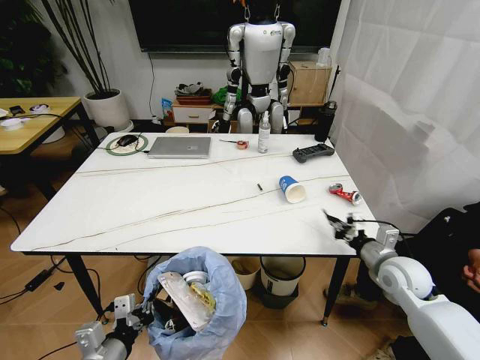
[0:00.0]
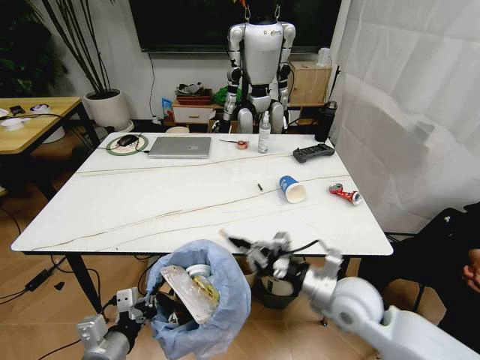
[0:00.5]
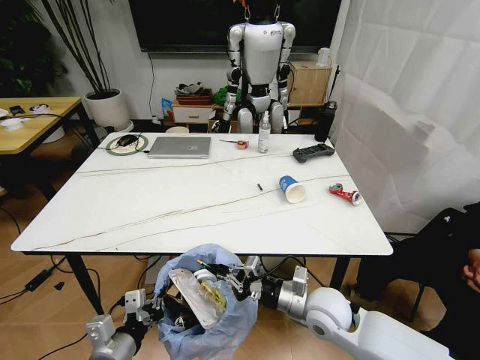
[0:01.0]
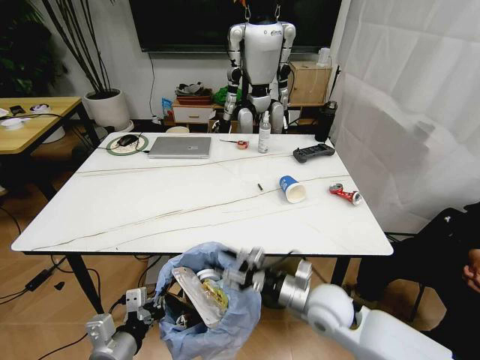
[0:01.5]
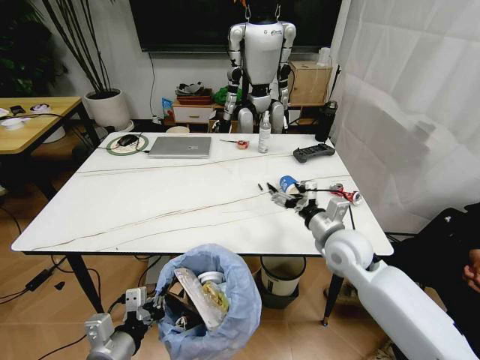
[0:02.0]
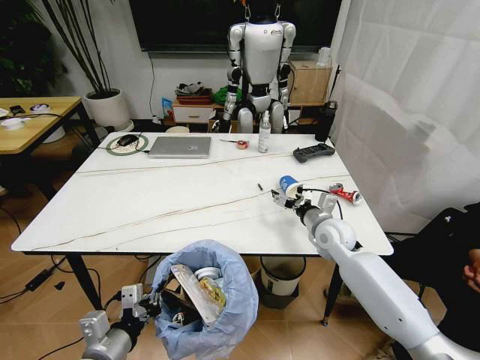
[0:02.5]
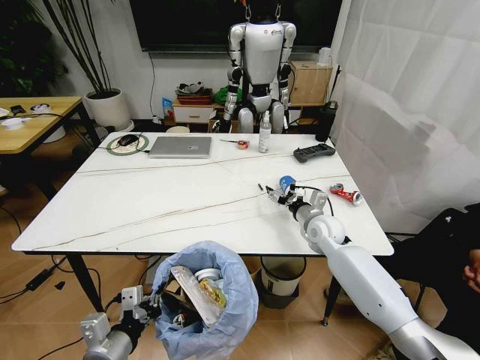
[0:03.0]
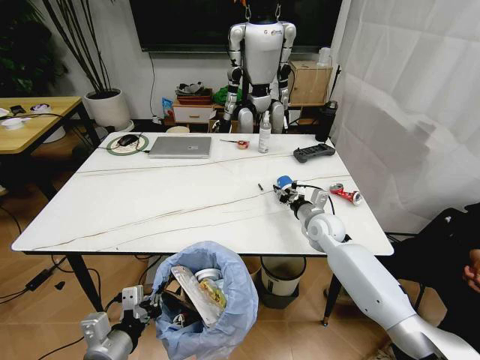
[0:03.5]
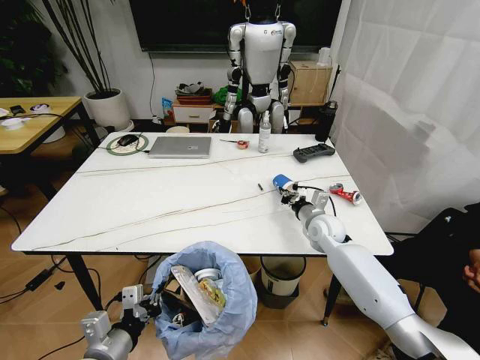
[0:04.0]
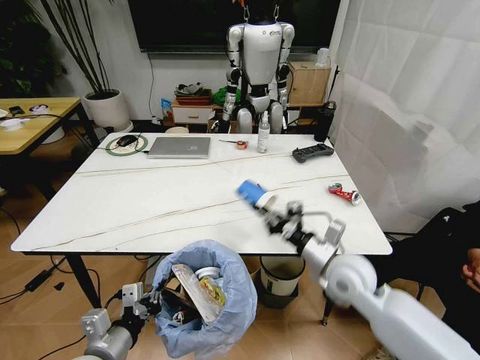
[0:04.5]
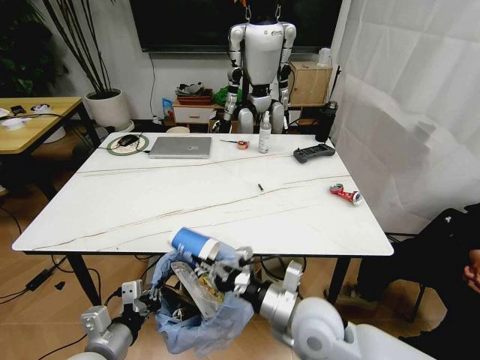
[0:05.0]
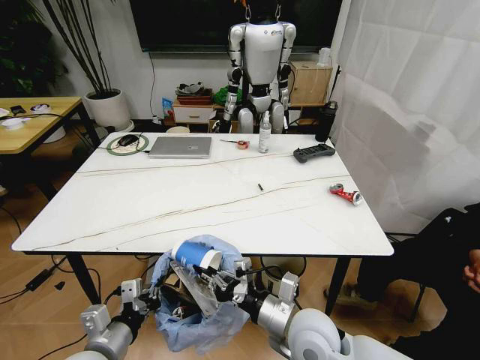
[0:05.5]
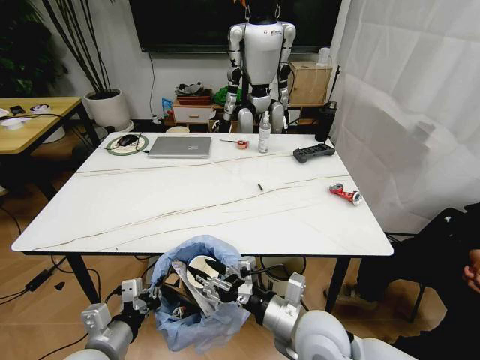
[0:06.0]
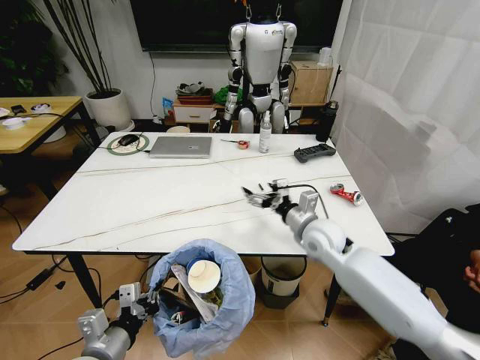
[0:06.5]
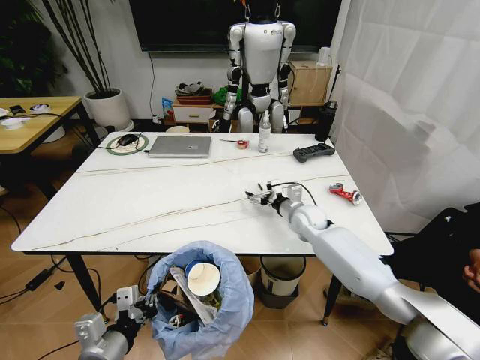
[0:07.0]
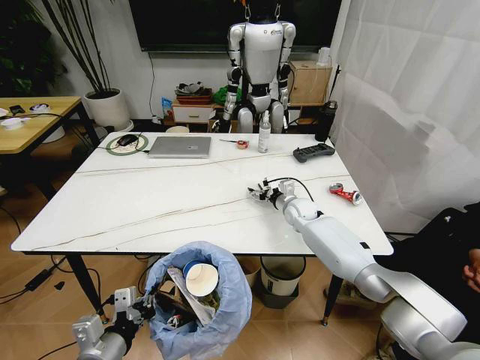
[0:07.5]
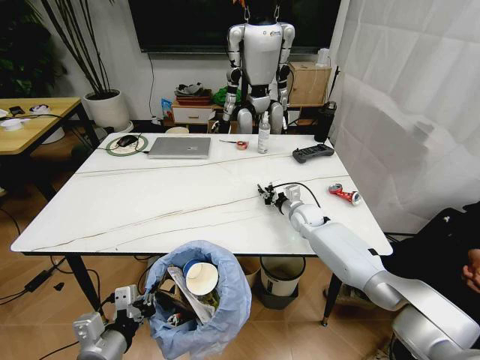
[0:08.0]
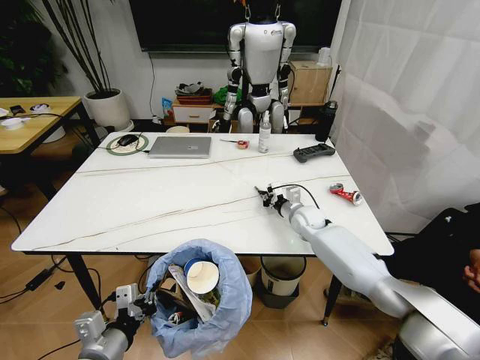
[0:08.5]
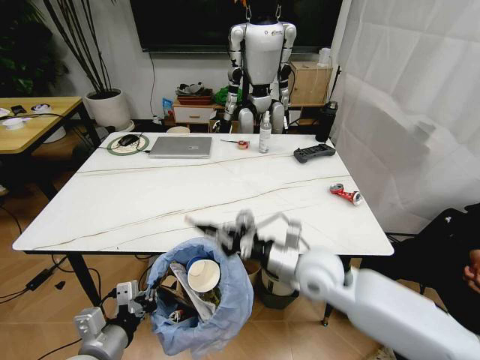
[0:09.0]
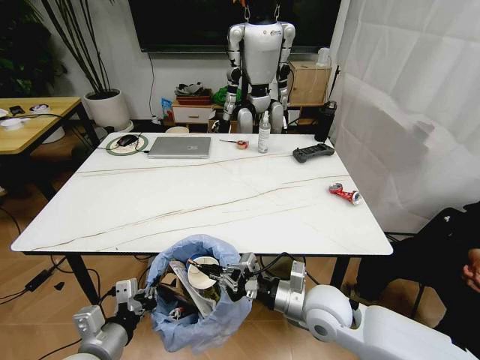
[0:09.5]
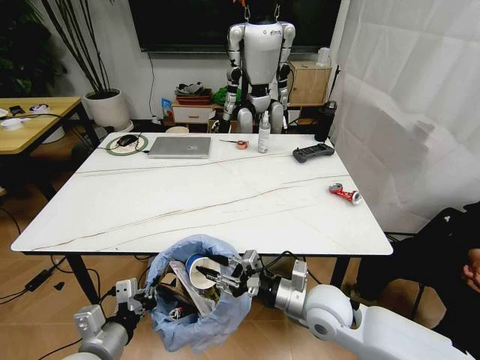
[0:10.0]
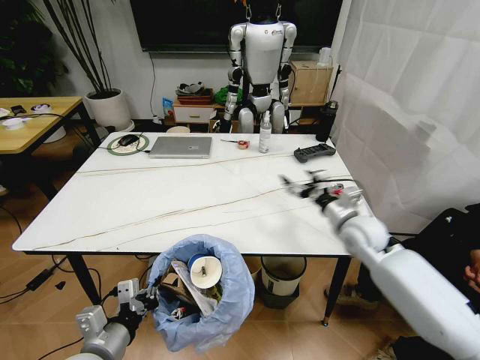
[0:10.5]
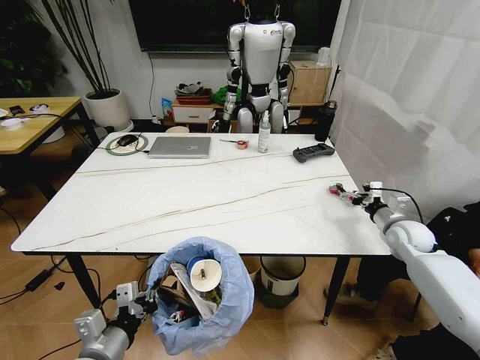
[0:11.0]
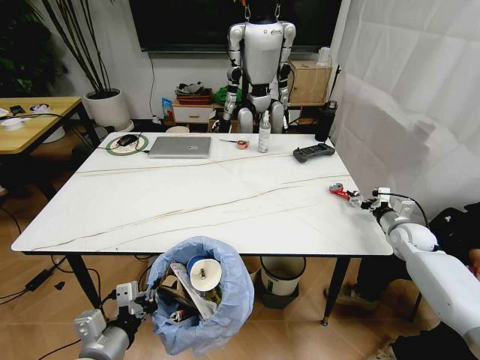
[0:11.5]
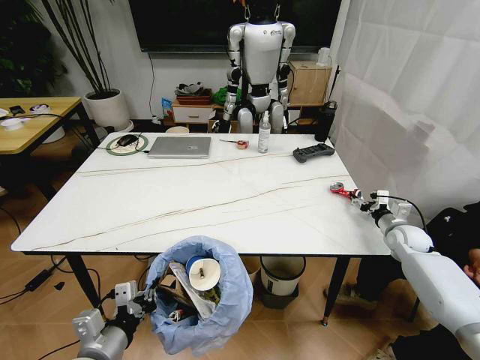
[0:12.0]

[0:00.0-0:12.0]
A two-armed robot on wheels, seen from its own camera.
Task of the whole recording: Pick up the trash bin and place the trash from the table into it.
0:00.0 to 0:02.0: The right gripper is displaced to the left and upward by about 15 cm, and opens up.
0:02.0 to 0:04.0: The right gripper travels forward and downward by about 15 cm, and closes.
0:04.0 to 0:06.0: The right gripper heads backward, covering approximately 25 cm, and opens its fingers.
0:06.0 to 0:08.0: The right gripper travels forward by approximately 35 cm, and opens, then closes once more.
0:08.0 to 0:10.0: The right gripper travels backward by some 30 cm.
0:10.0 to 0:12.0: The right gripper travels to the right and forward by approximately 35 cm.

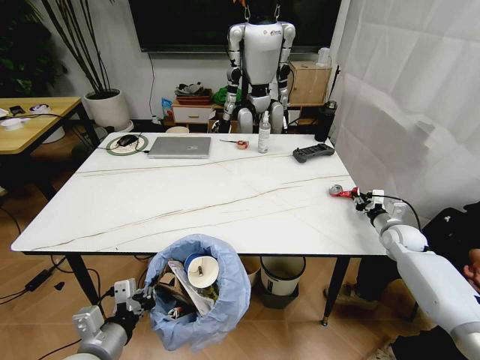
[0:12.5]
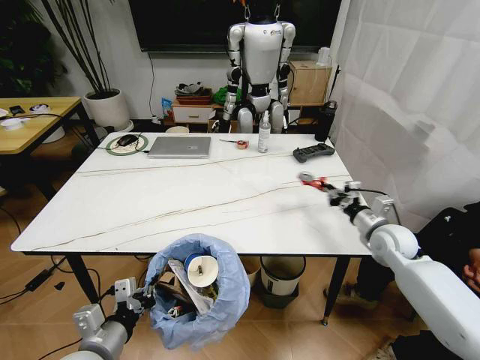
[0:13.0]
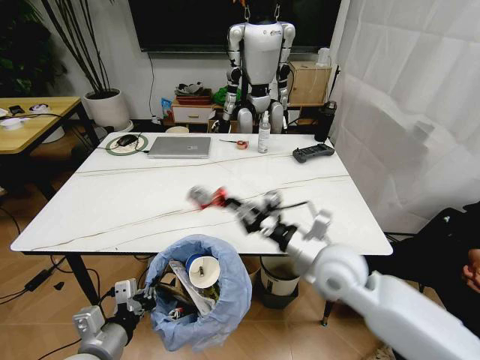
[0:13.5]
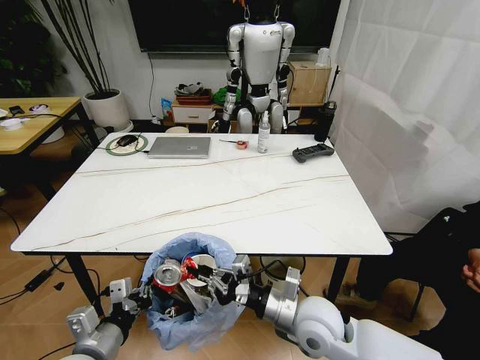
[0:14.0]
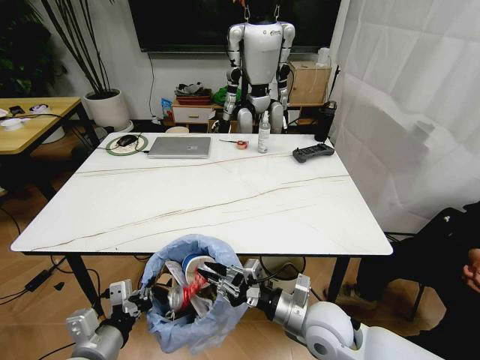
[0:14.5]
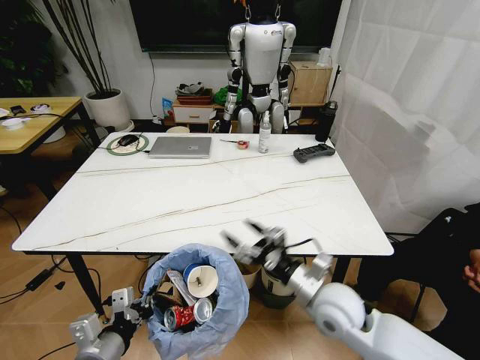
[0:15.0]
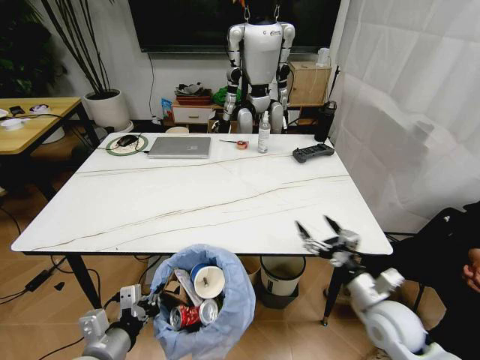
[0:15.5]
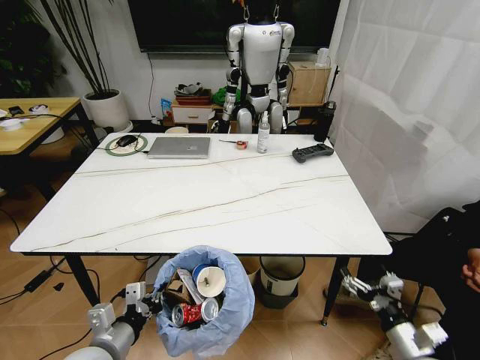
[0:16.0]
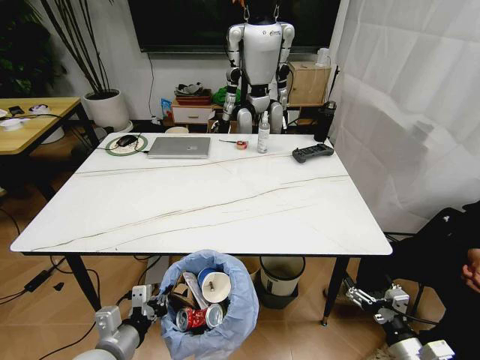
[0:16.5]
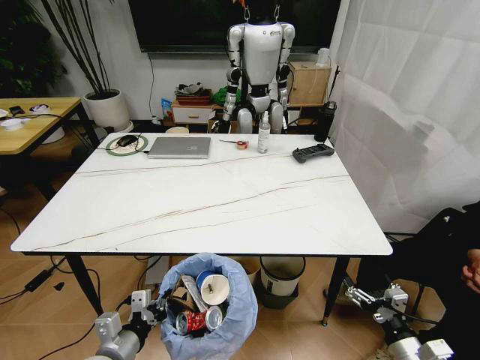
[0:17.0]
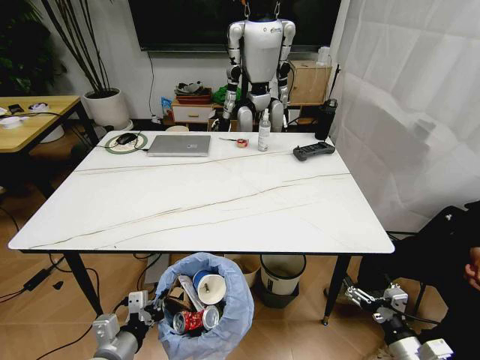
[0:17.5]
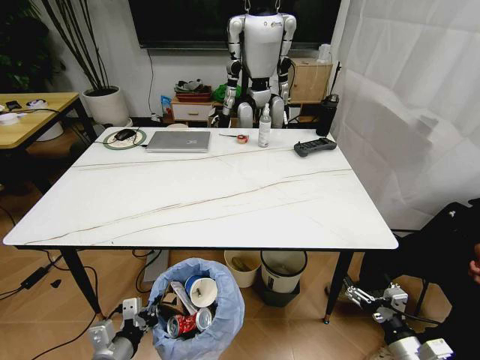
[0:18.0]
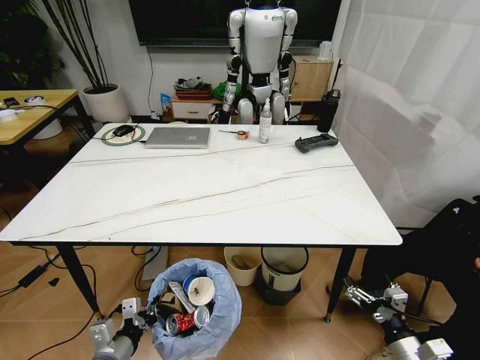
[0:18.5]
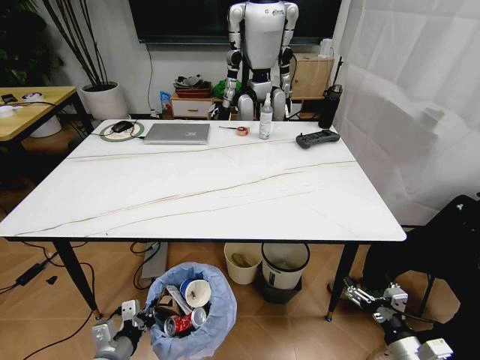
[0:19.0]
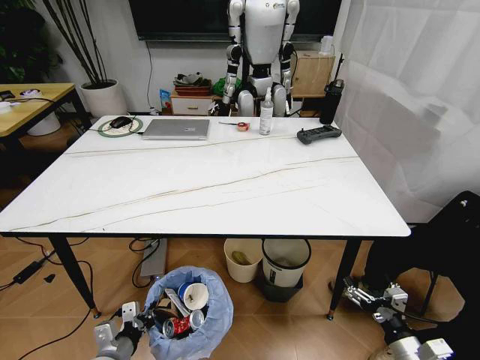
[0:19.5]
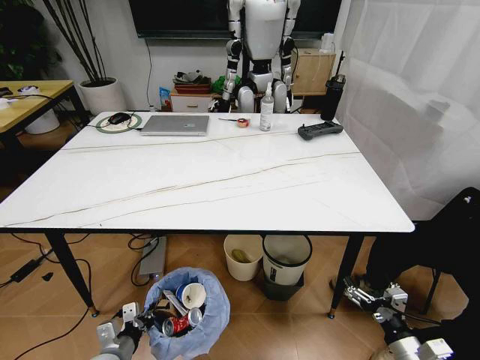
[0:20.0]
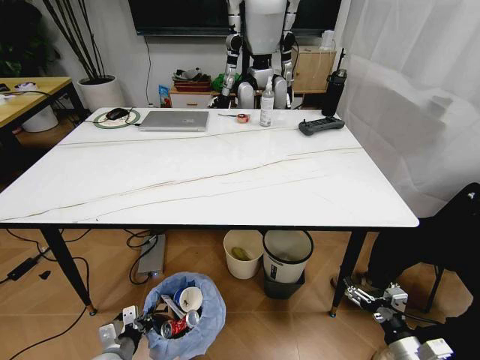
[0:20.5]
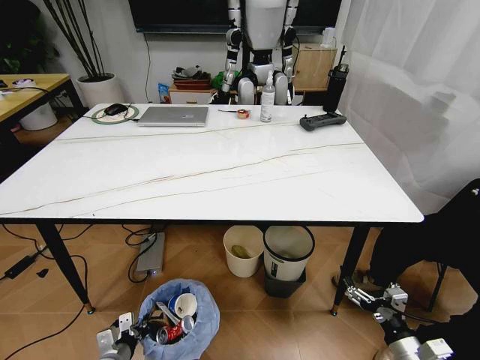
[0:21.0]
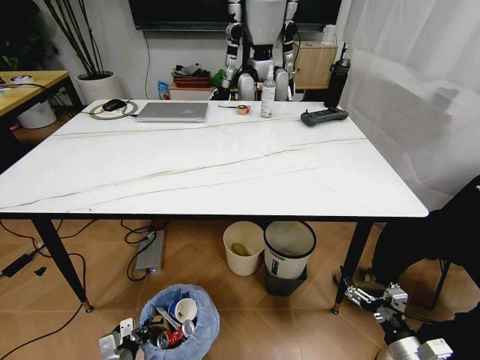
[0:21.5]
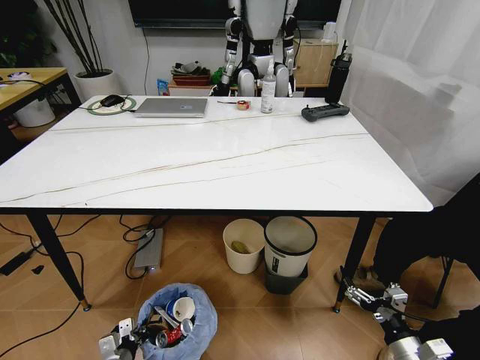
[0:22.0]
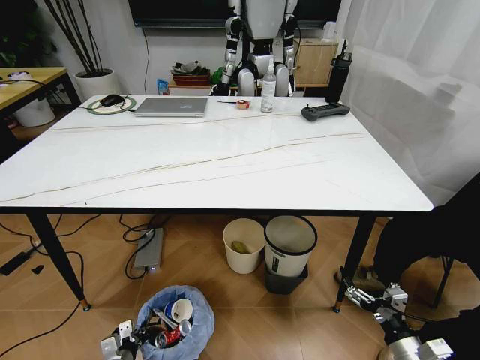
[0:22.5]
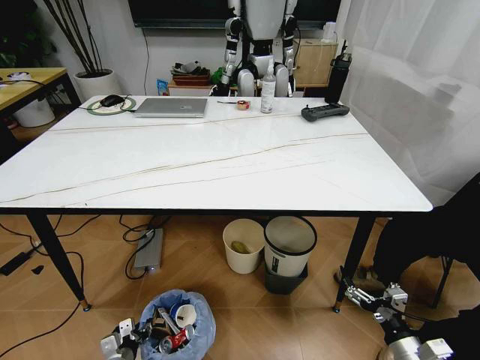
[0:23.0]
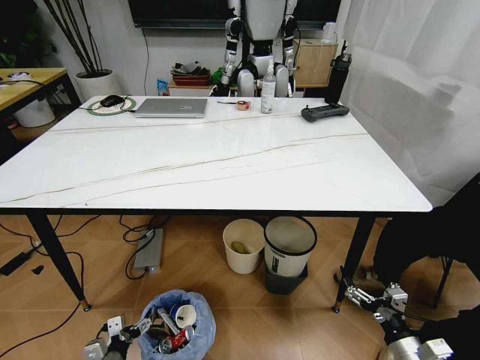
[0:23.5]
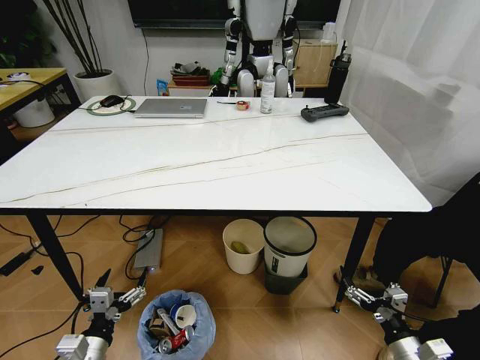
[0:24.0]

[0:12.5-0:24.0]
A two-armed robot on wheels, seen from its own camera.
Task of the whole recording: Pick up the trash bin and place the trash from the table into it.
0:12.5 to 0:14.5: The right gripper shifts roughly 40 cm to the left and backward.
0:14.5 to 0:16.5: The left gripper shifts by approximately 5 cm; the right gripper is displaced to the right and backward by about 25 cm, and opens up.
0:16.5 to 0:18.5: The left gripper is displaced downward by approximately 5 cm.
0:18.5 to 0:20.0: The left gripper travels downward by some 5 cm.
0:20.0 to 0:22.0: The left gripper is displaced downward by some 10 cm.
0:22.0 to 0:24.0: The left gripper is displaced upward by roughly 20 cm, and opens.

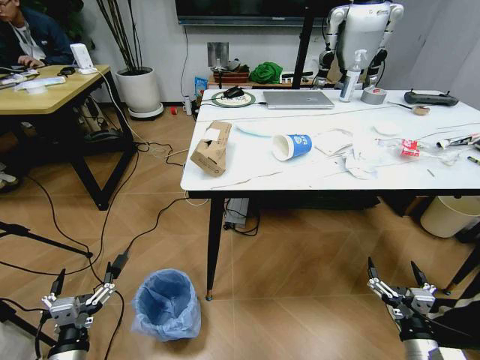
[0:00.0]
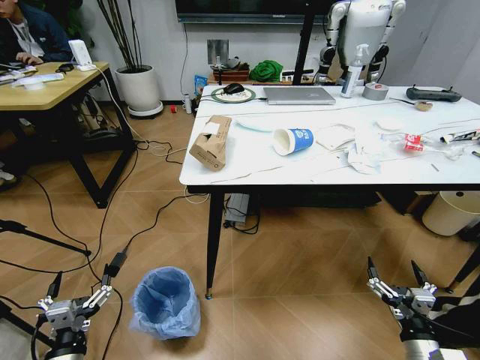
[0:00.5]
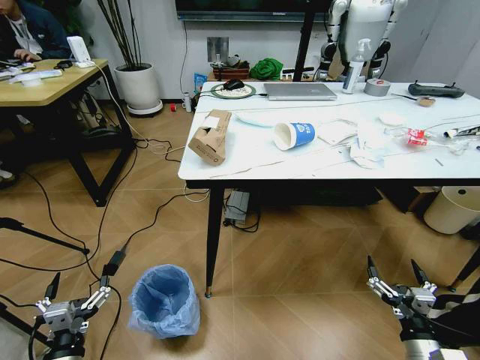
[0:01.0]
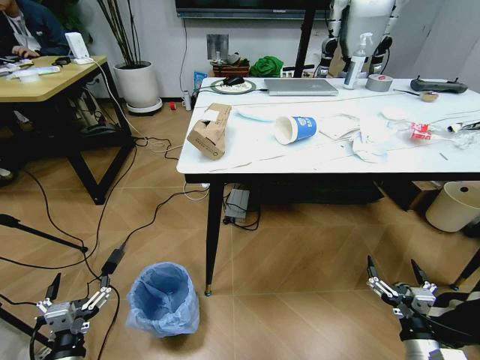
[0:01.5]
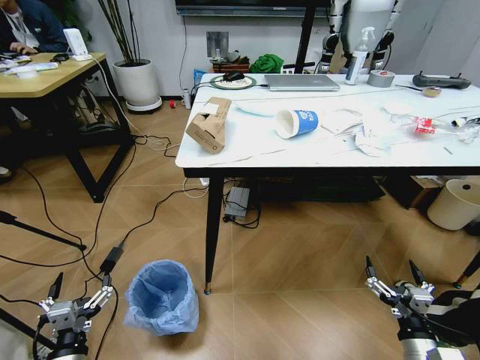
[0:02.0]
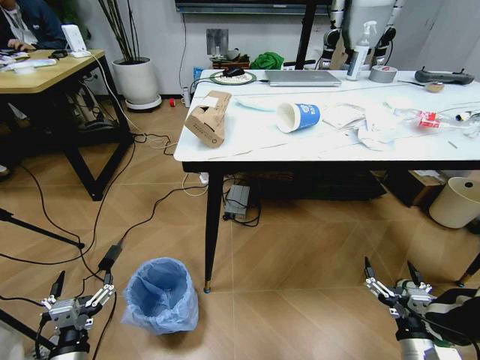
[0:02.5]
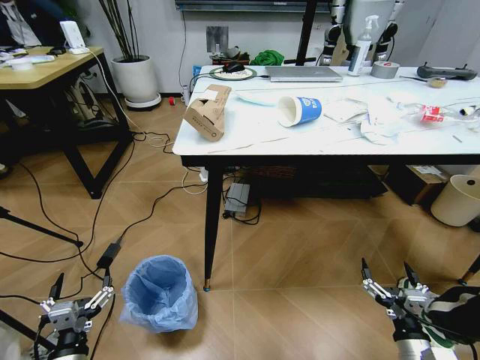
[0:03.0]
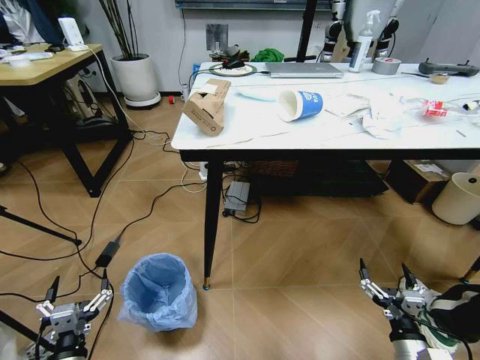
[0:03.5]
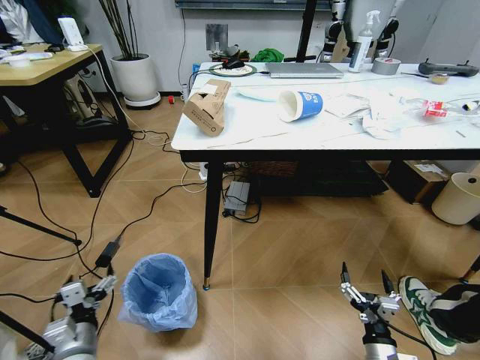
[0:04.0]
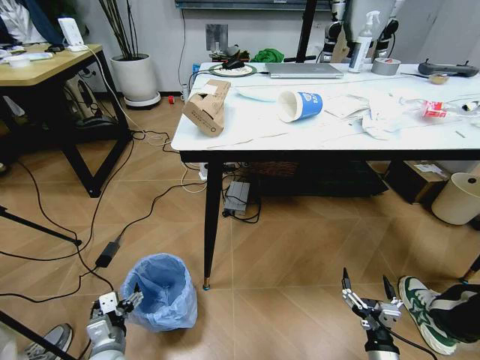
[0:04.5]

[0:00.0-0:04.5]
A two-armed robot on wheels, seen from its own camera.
Task of the whole recording: Pick up the trash bin and place the trash from the table into it.
0:02.0 to 0:04.5: The right gripper is displaced to the left by some 5 cm. The left gripper shifts about 10 cm forward and downward.
